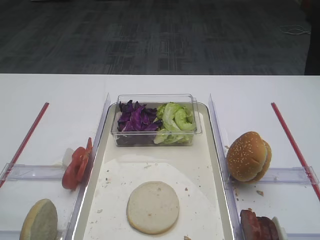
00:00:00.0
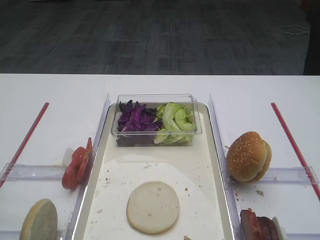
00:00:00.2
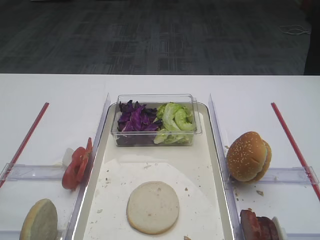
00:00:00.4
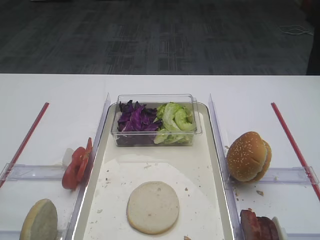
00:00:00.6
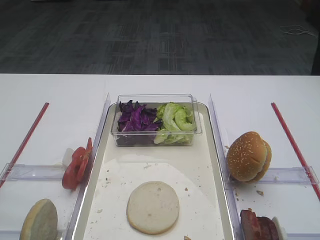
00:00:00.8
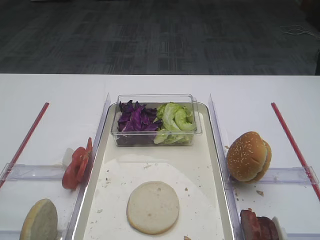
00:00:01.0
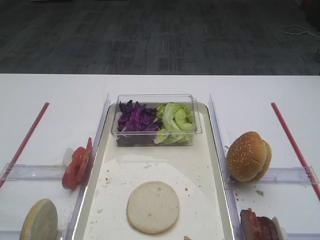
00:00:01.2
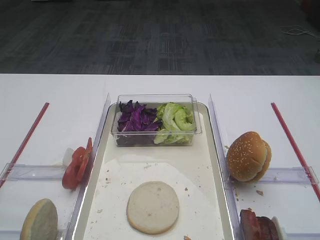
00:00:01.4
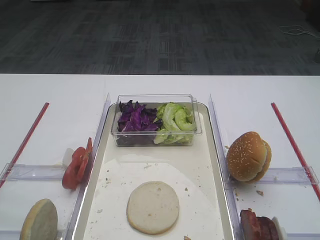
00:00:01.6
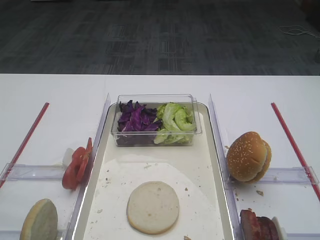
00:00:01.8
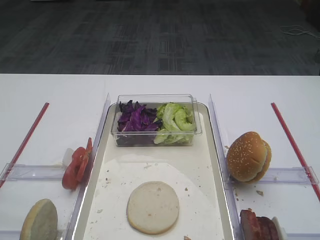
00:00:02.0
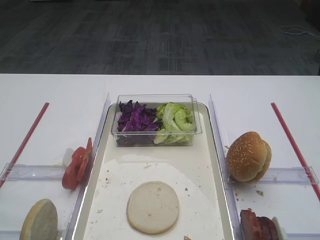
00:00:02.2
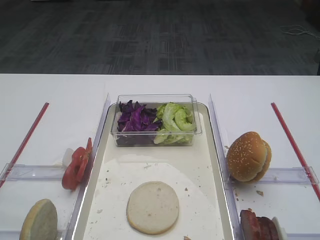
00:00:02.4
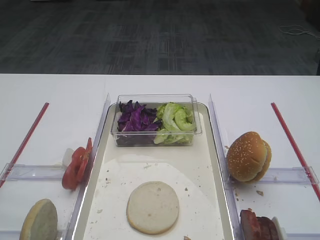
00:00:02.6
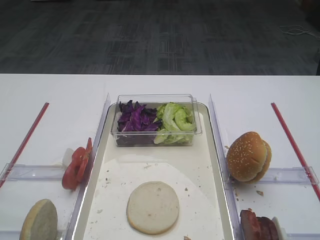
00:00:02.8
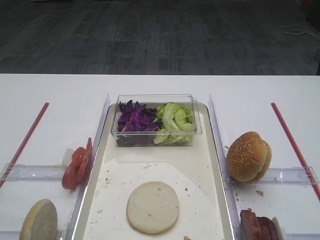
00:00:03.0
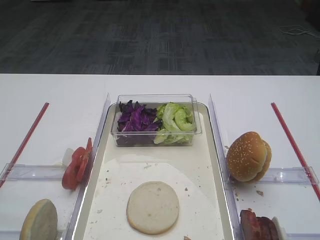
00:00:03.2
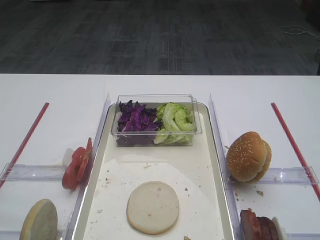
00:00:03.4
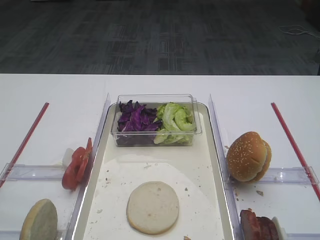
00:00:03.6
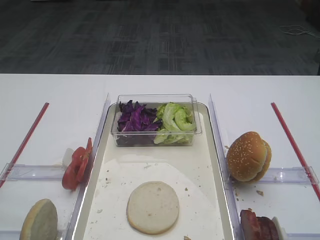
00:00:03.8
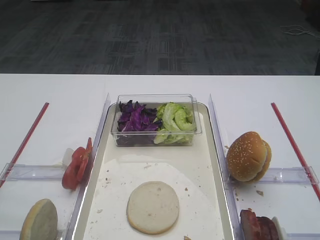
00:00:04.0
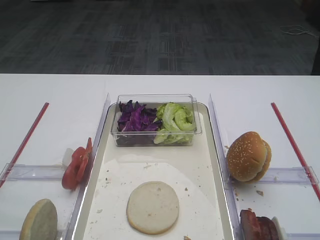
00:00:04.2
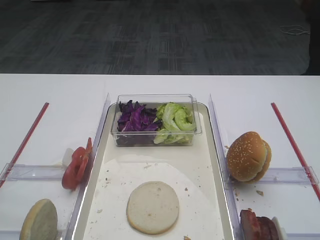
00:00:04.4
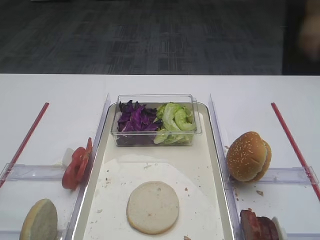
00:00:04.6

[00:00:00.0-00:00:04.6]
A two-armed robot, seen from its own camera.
00:00:01.6 to 00:00:04.6: The two grippers keep their place.
